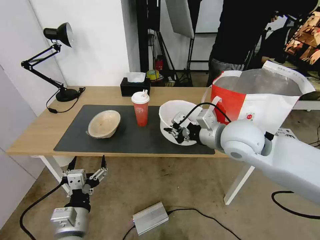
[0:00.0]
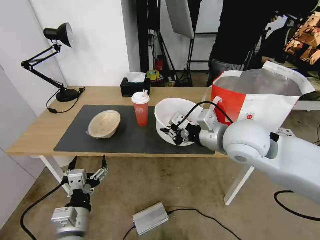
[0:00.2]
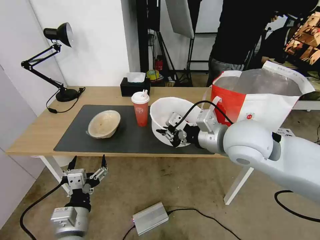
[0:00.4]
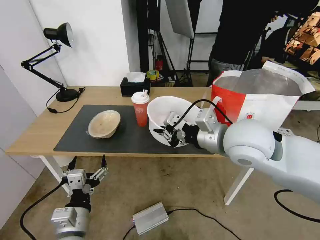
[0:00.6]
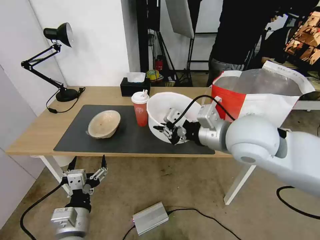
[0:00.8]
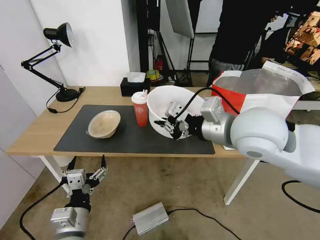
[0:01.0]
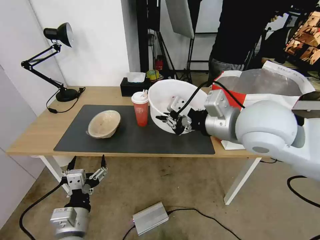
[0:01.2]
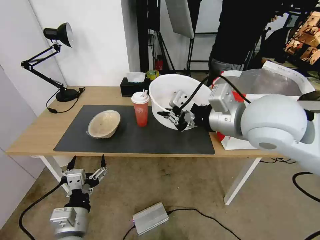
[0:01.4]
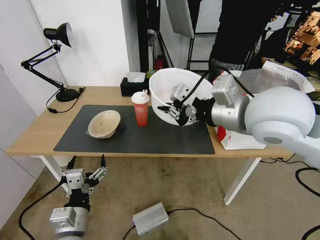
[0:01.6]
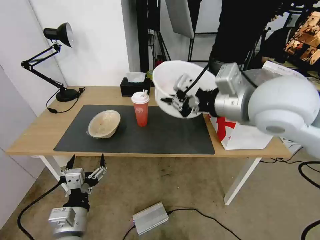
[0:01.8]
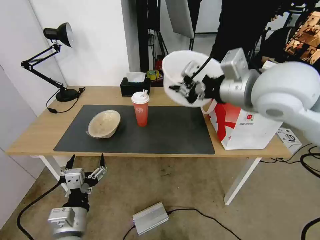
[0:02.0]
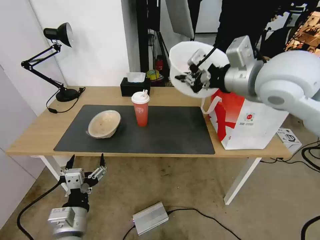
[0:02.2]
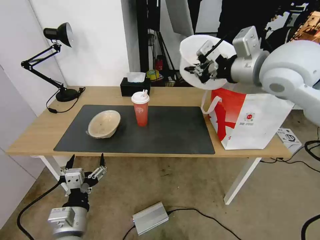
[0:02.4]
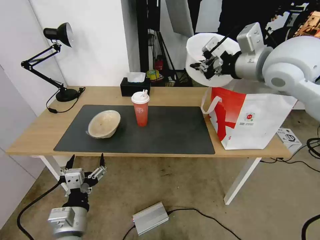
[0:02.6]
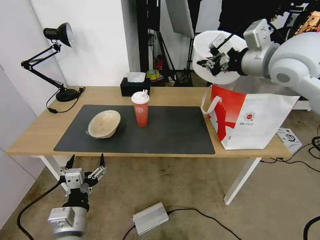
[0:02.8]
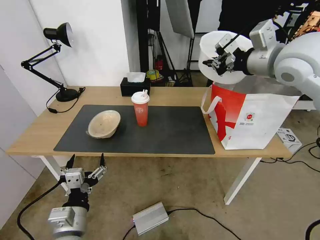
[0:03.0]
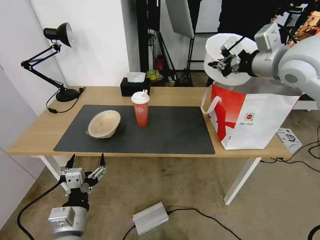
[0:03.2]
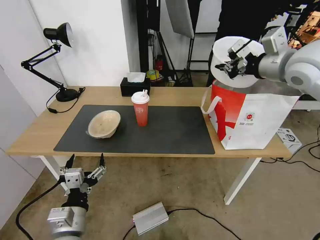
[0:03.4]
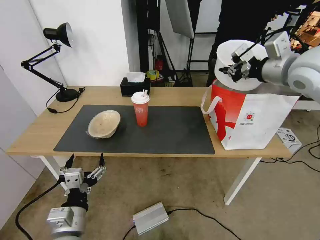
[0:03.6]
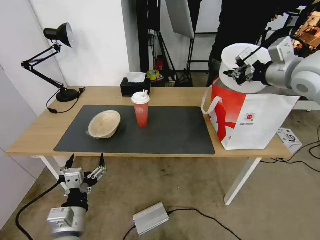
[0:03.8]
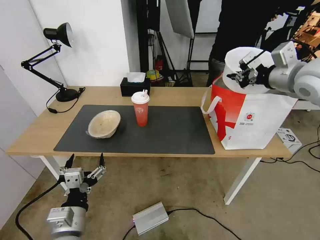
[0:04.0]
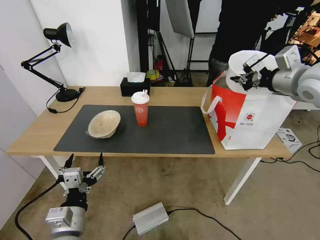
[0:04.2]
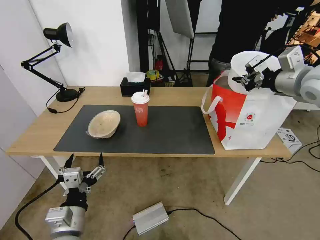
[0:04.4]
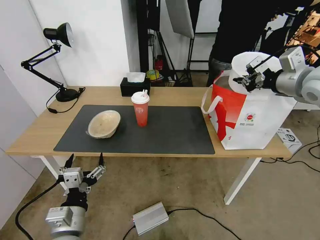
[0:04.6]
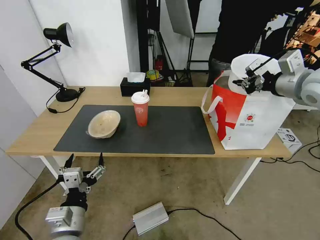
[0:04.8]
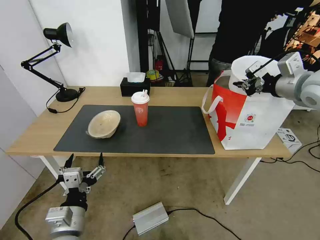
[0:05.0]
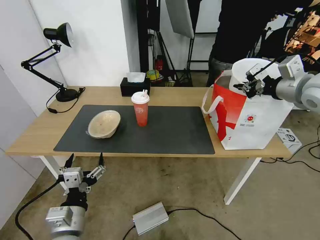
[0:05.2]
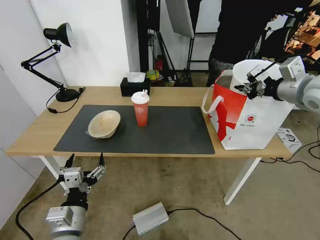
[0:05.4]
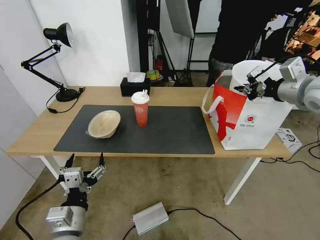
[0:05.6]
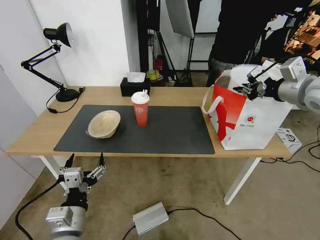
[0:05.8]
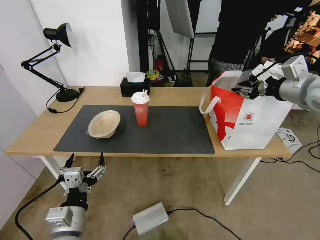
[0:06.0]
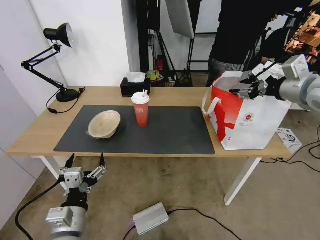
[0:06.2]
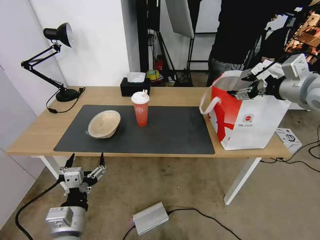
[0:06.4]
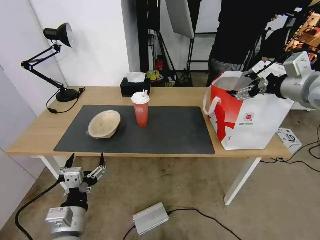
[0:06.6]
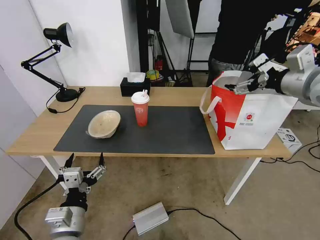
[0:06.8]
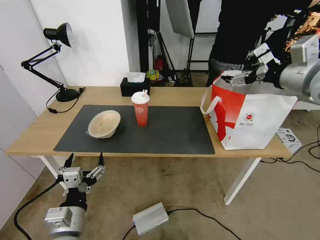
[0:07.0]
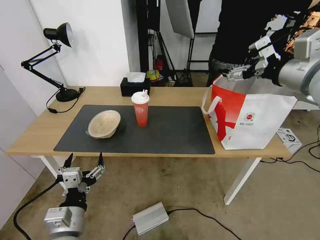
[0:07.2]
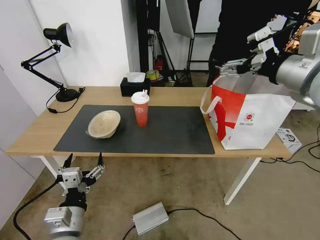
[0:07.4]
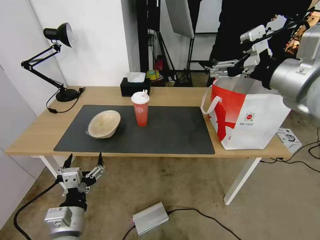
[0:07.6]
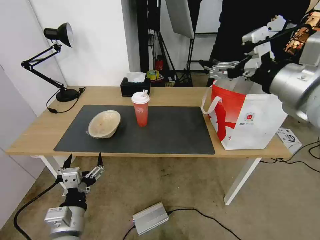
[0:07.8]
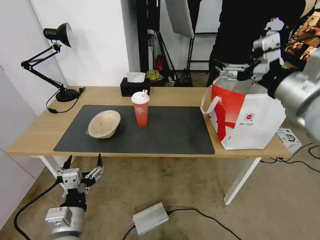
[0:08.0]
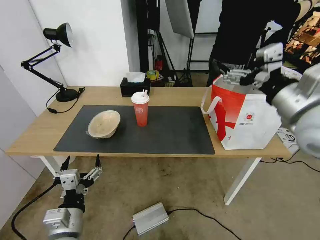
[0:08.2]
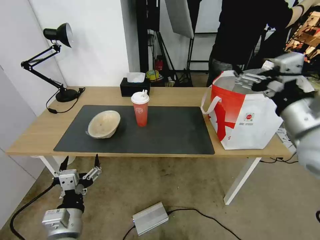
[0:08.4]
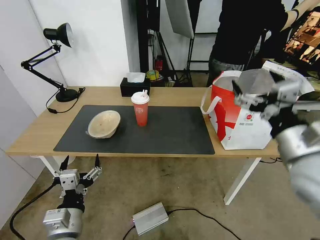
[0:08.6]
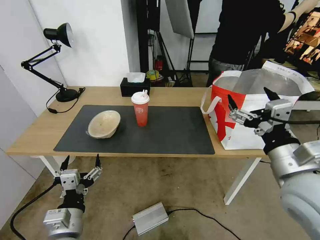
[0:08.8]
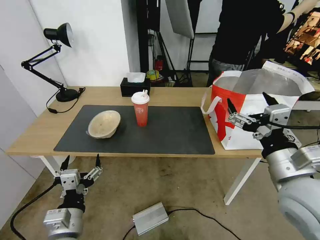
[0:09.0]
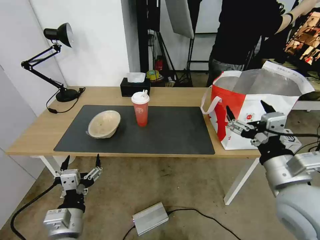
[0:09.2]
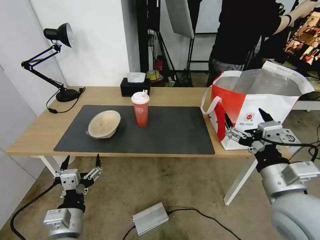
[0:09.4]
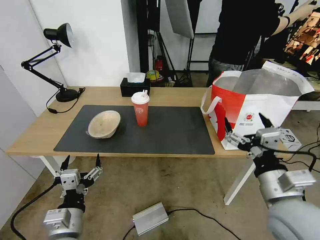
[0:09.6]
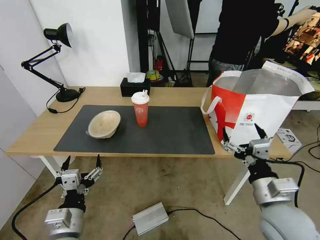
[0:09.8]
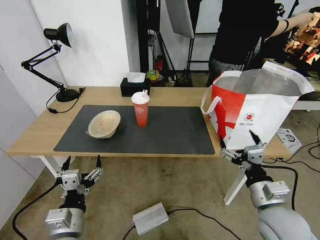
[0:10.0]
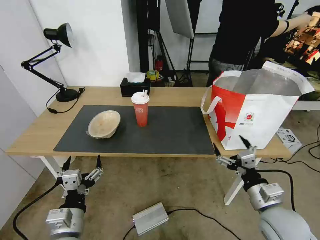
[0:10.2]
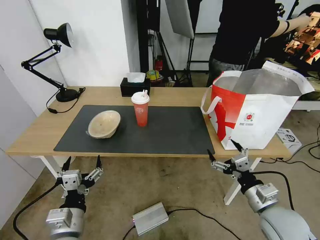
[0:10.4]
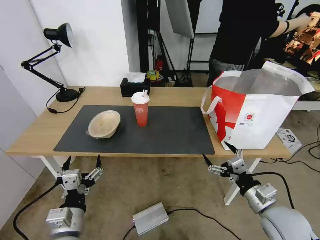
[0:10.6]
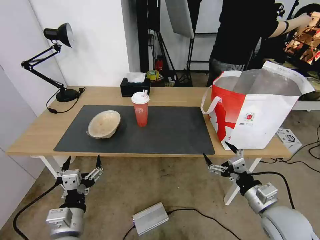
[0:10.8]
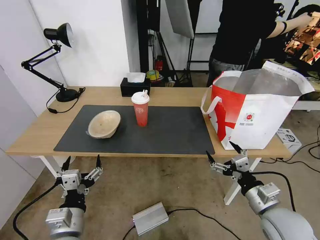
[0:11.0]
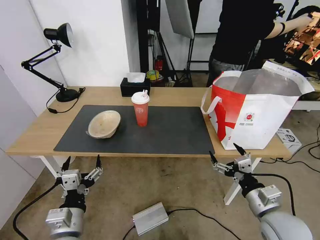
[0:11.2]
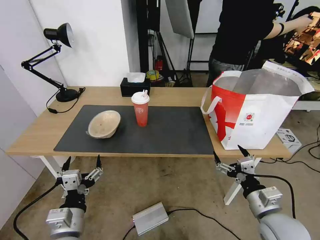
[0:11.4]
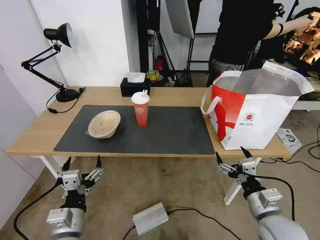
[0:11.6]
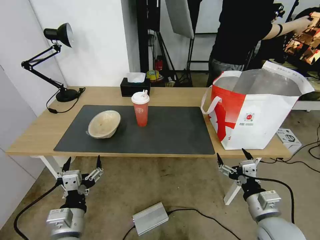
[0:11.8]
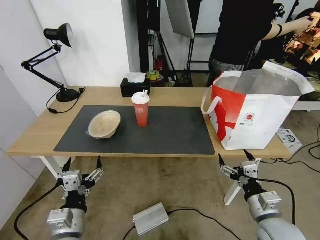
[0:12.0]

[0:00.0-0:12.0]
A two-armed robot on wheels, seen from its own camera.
Task of the whole recording: Pick up the trash from the table and place it into the takeout bag.
0:00.0 to 0:01.6: The right gripper goes some 10 cm upward.
0:01.6 to 0:03.0: The right gripper shifts about 15 cm forward and to the right.
0:03.0 to 0:04.4: The right gripper shifts about 10 cm to the right.
0:04.4 to 0:06.0: The grippers stay close to where they were, moving slightly.
0:06.0 to 0:07.6: The right gripper heads to the left and backward, covering approximately 15 cm, and opens up.
0:07.6 to 0:09.0: The right gripper shifts approximately 20 cm downward and backward.
0:09.0 to 0:10.4: The right gripper heads downward, covering some 15 cm.
0:10.4 to 0:12.0: The grippers stay close to where they were, moving slightly.

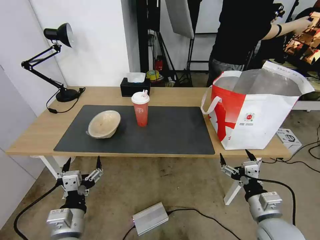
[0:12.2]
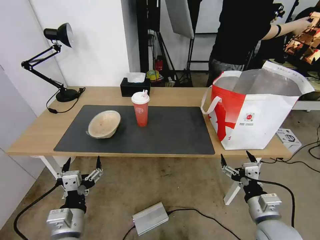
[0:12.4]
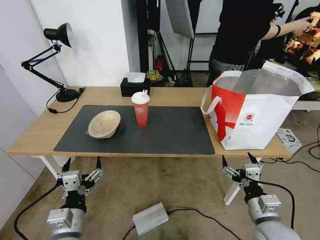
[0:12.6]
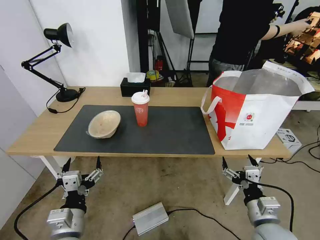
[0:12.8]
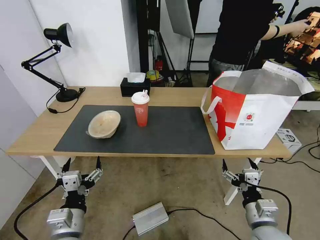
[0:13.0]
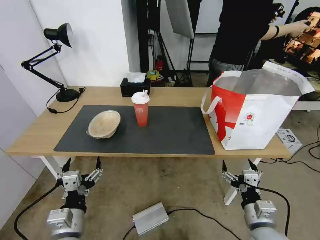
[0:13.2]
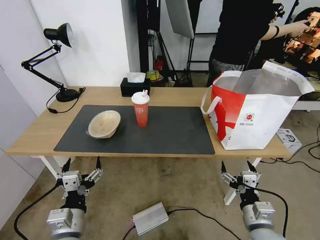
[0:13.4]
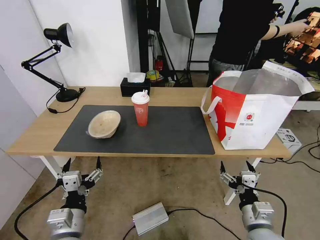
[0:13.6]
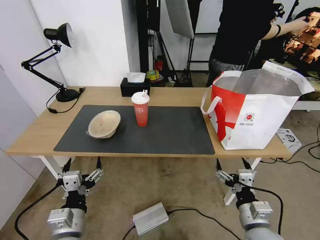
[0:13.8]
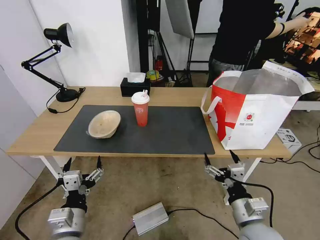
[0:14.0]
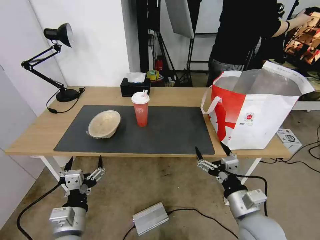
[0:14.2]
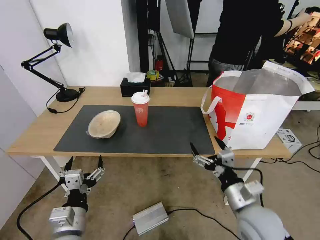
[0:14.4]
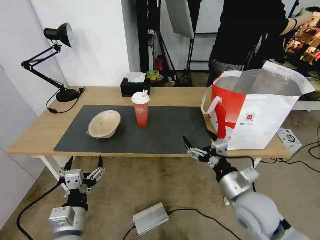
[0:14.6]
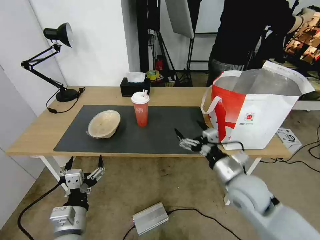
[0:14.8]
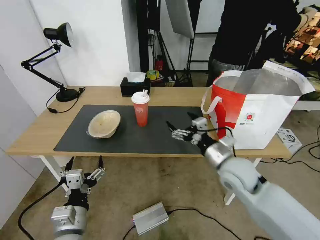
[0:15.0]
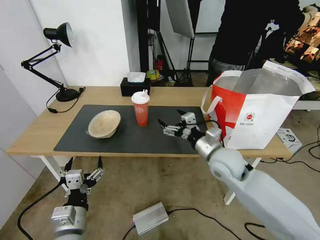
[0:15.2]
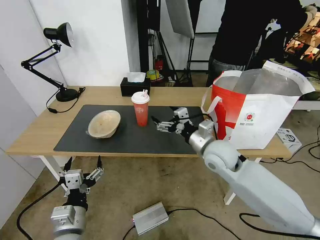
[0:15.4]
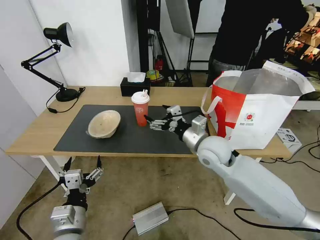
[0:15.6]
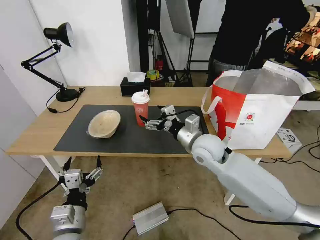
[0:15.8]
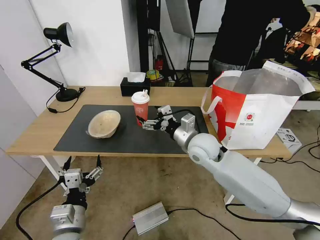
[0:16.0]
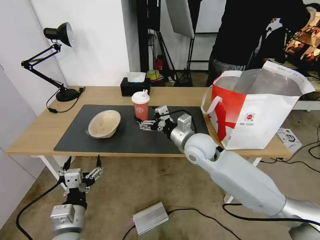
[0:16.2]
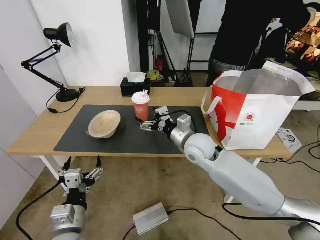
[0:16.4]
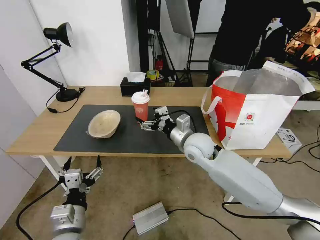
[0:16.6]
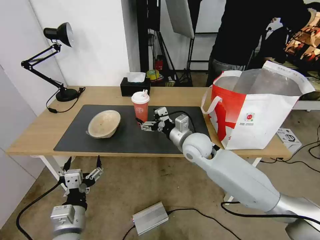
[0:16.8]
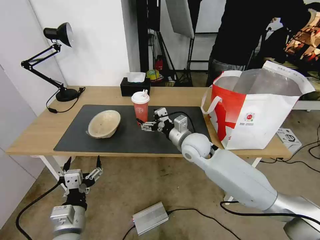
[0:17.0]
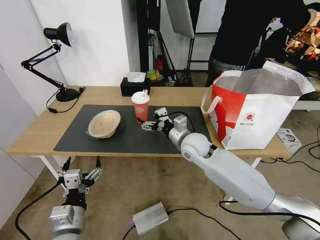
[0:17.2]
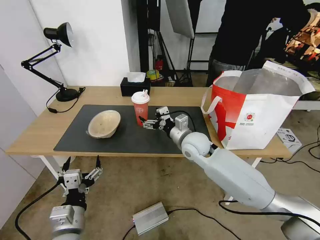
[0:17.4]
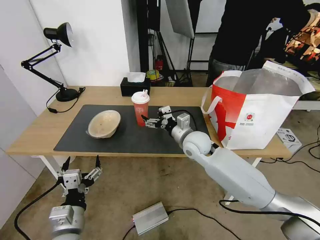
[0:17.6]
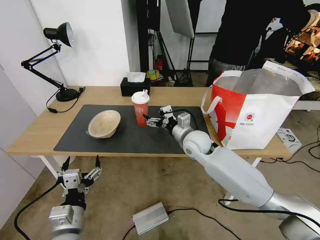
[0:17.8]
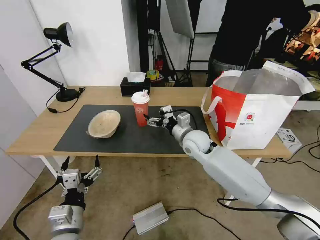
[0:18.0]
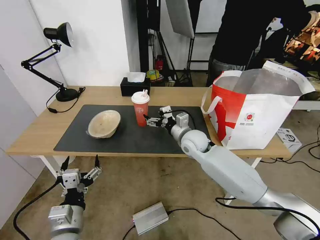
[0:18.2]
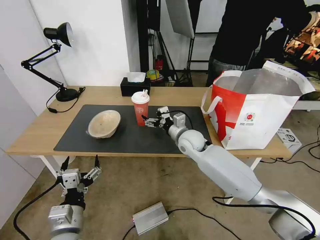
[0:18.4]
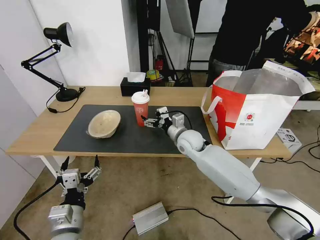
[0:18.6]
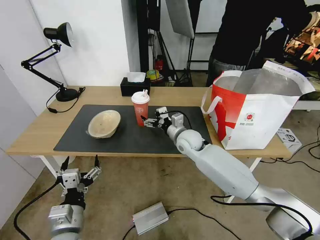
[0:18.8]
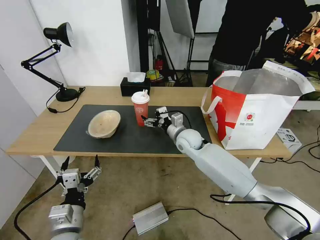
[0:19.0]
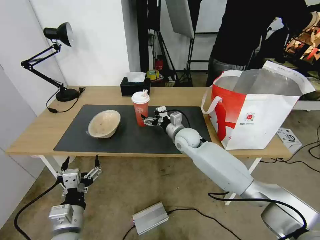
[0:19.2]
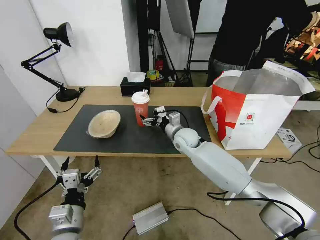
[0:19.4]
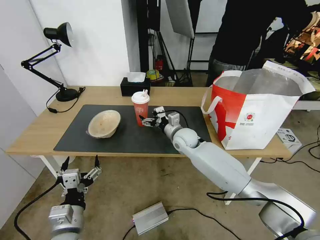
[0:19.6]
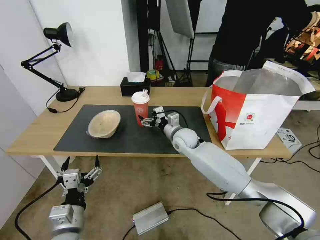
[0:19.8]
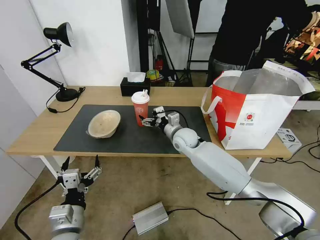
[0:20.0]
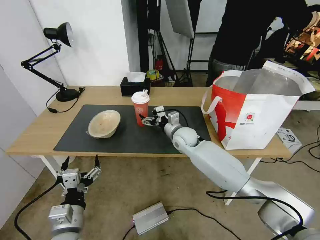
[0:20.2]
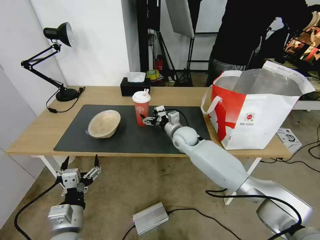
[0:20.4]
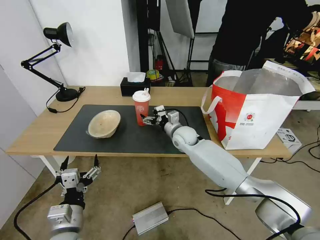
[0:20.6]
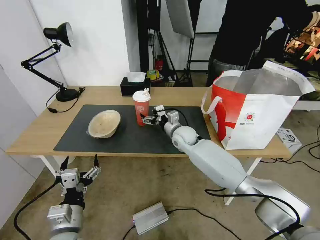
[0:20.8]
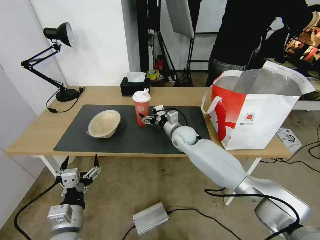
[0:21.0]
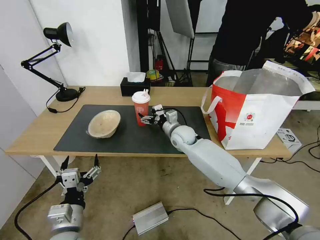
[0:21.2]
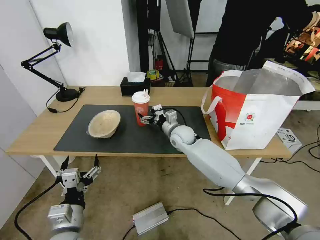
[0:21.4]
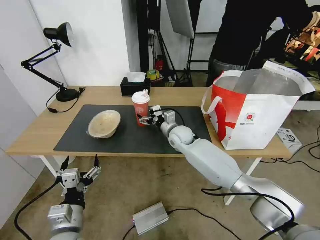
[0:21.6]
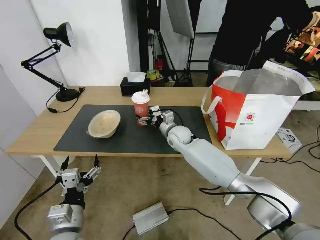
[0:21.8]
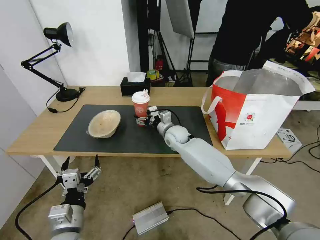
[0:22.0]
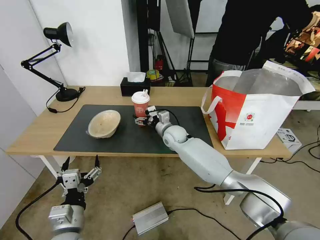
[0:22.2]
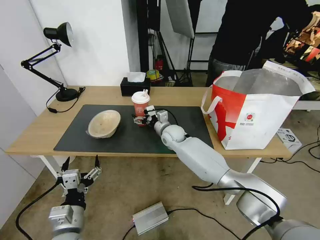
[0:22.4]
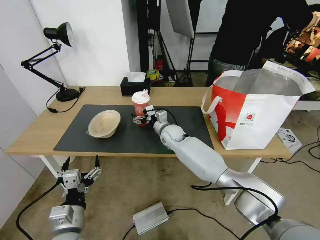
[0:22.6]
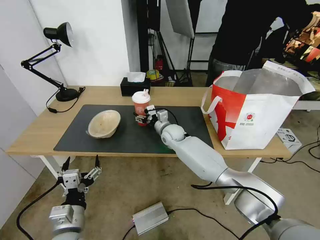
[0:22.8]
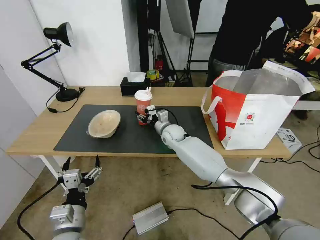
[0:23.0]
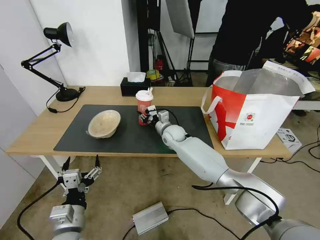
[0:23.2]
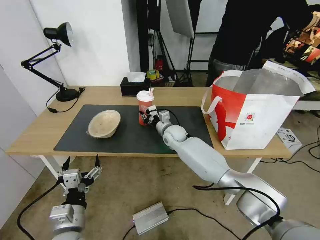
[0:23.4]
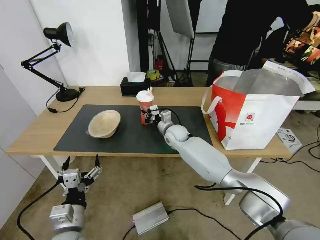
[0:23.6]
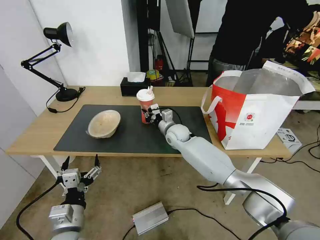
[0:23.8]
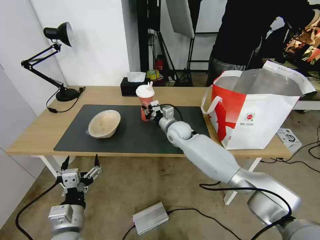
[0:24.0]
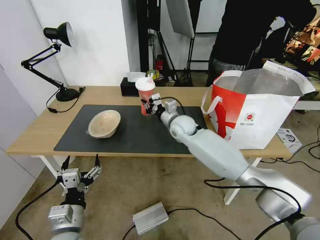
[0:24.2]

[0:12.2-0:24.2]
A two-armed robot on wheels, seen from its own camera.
Task of the whole recording: Pick up the trash from the table and place it into the takeout bag.
0:12.2 to 0:13.8: The grippers stay close to where they were, moving slightly.
0:13.8 to 0:15.2: The right gripper is displaced forward and upward by roughly 20 cm.
0:15.2 to 0:16.6: The right gripper is displaced to the left and forward by some 10 cm.
0:16.6 to 0:18.2: The right gripper goes approximately 5 cm forward.
0:18.2 to 0:21.2: The grippers stay close to where they were, moving slightly.
0:21.2 to 0:22.6: The right gripper changes place by some 5 cm.
0:22.6 to 0:24.2: The right gripper heads upward, covering some 5 cm, and closes its fingers.
